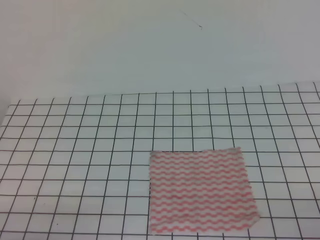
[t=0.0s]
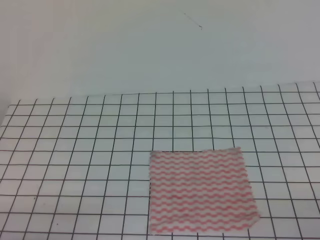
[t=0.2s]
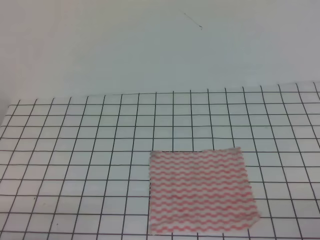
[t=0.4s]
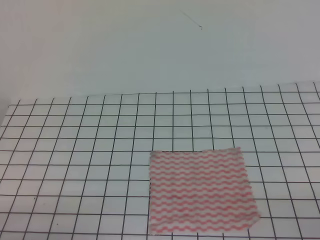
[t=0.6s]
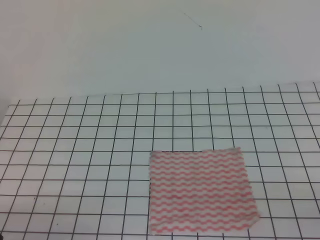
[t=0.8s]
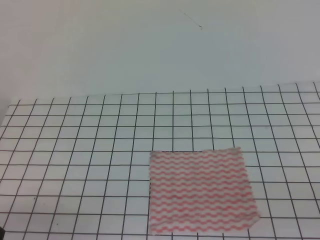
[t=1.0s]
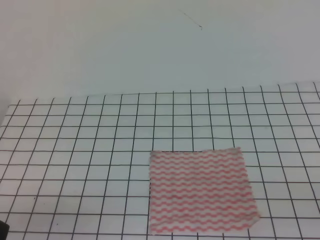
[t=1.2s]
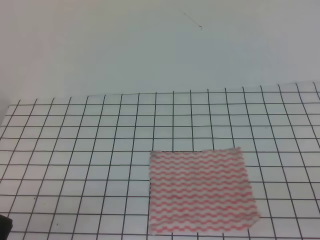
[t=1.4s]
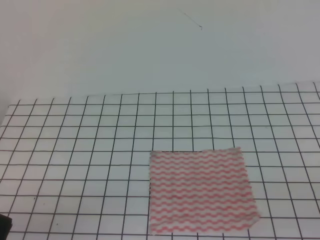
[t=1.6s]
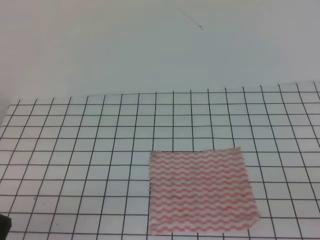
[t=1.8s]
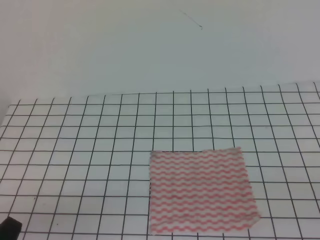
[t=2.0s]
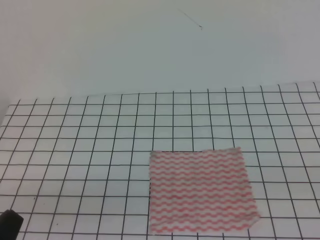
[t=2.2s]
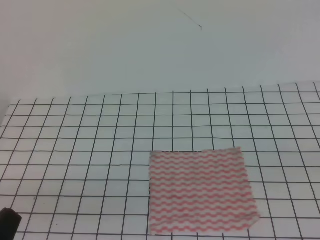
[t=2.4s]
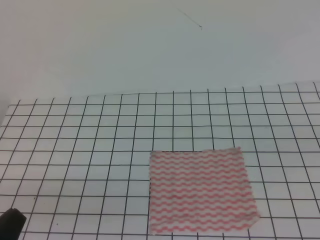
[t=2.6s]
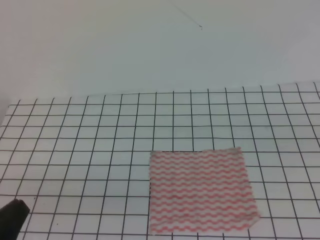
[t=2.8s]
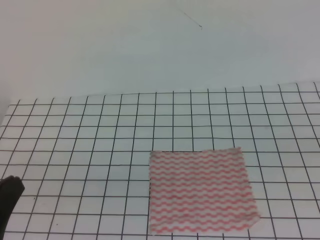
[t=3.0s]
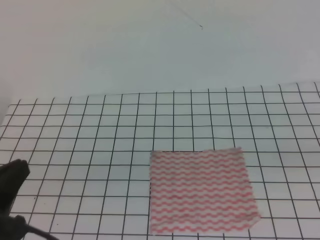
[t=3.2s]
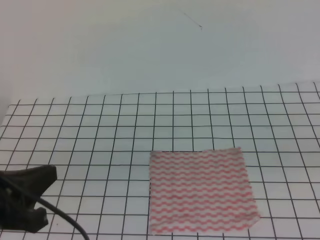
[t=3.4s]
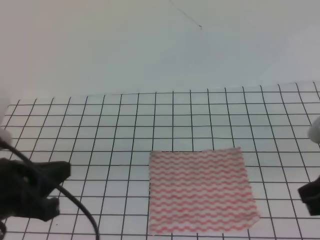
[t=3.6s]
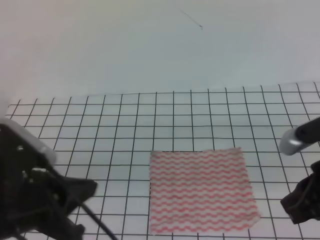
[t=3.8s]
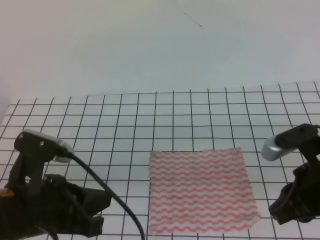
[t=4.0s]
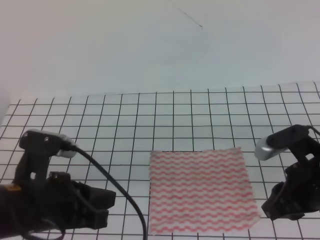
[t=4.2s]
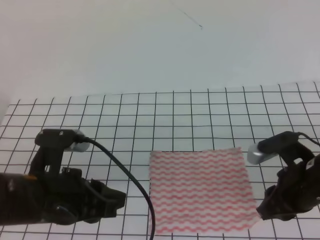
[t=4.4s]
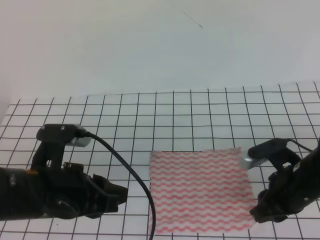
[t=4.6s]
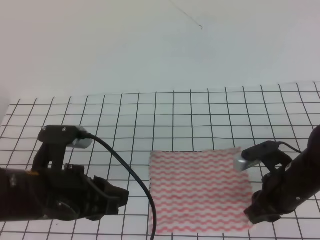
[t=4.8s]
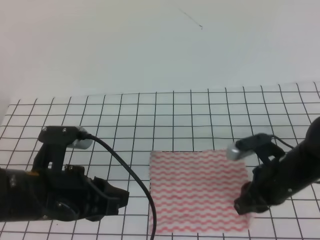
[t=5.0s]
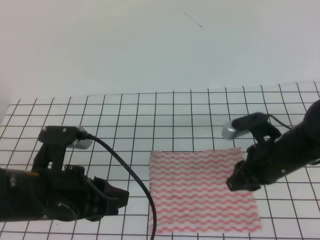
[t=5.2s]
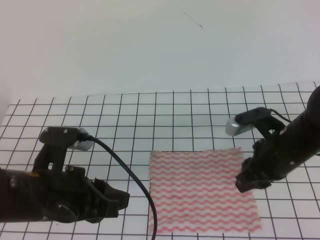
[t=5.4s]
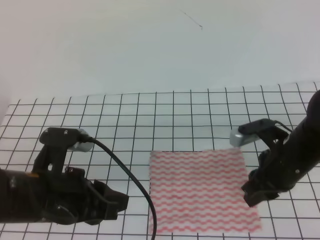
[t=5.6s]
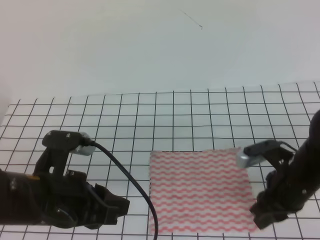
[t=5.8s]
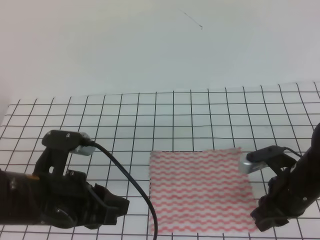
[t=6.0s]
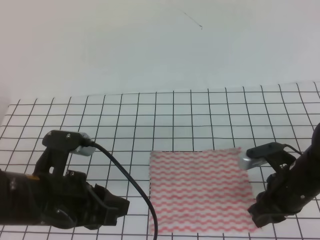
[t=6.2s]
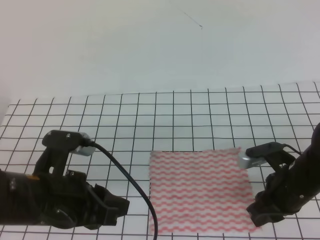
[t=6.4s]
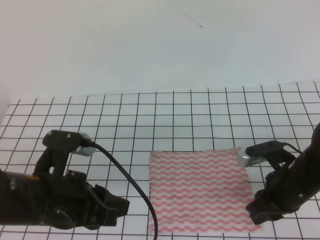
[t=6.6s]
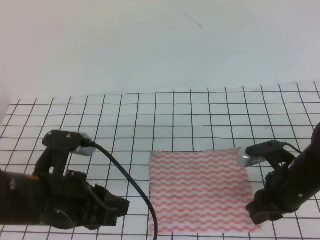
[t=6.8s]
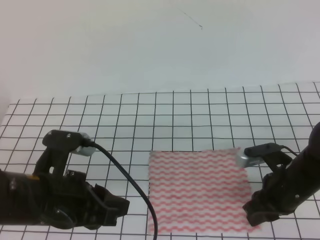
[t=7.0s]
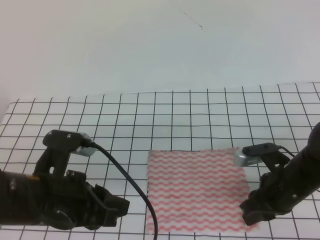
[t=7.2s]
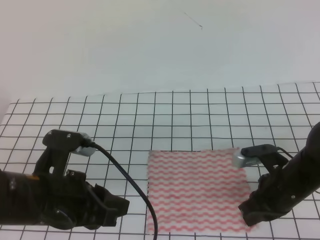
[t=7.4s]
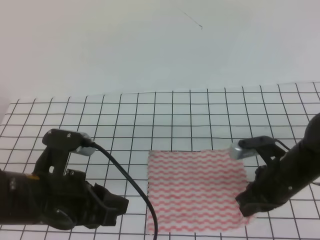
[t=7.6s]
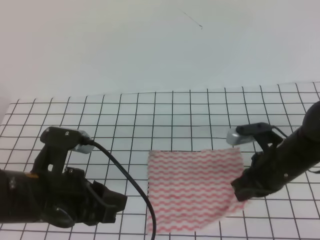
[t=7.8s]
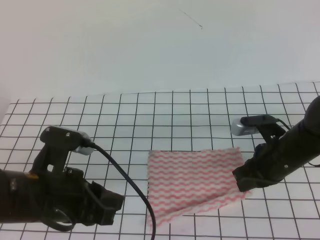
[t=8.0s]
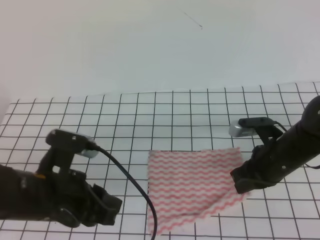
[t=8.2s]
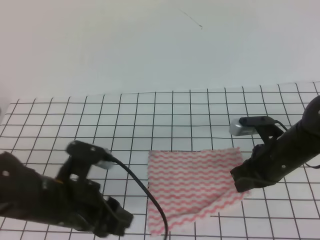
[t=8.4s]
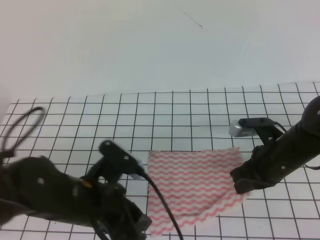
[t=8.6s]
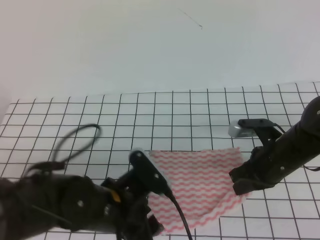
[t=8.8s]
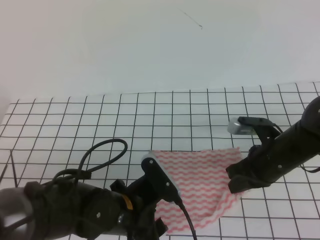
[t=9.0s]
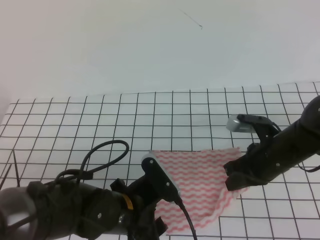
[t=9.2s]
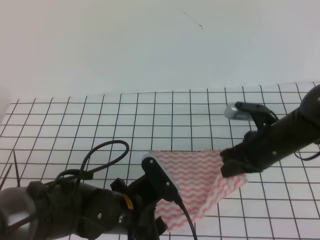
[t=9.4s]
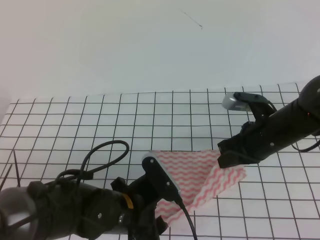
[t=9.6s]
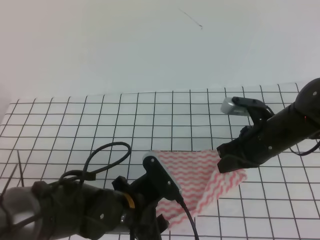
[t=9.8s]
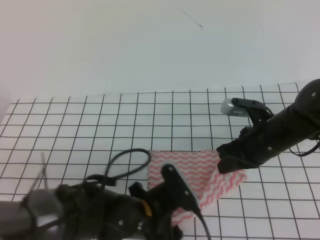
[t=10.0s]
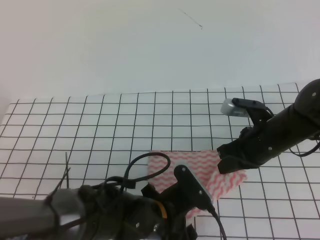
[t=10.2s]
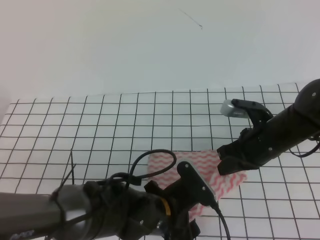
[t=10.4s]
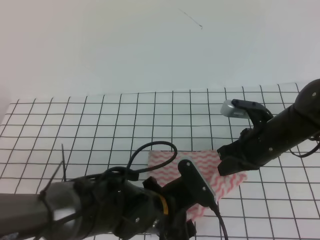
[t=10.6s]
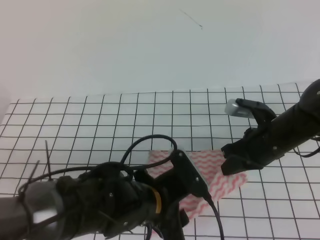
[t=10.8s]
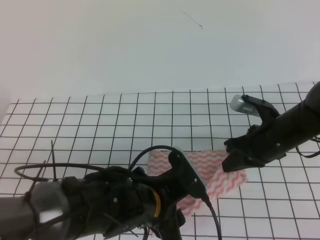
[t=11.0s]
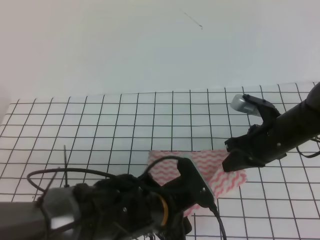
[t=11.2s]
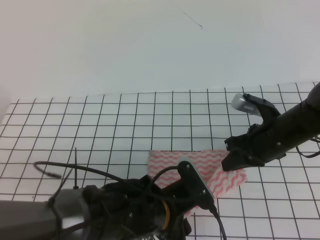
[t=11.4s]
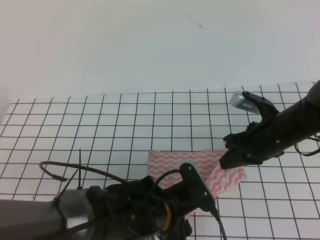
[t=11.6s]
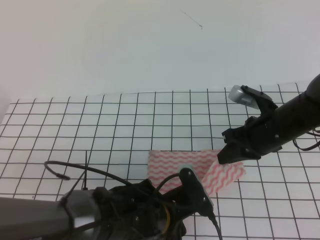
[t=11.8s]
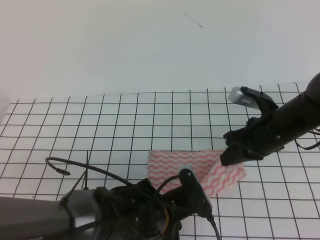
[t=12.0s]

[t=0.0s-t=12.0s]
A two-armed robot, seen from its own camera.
t=1.6s to t=3.0s: The left gripper heads upward, covering approximately 10 cm.
t=3.0s to t=4.4s: The left gripper heads forward and to the right, covering about 15 cm, and opens, while the right gripper travels to the left, downward and forward by some 20 cm, and opens up.
t=4.4s to t=6.0s: The grippers stay close to where they were, moving slightly.
t=6.0s to t=7.6s: The right gripper closes its fingers.
t=7.6s to t=9.0s: The left gripper shifts some 10 cm to the right and downward, and opens up.
t=9.0s to t=10.4s: The left gripper shifts some 5 cm to the right.
t=10.4s to t=12.0s: The left gripper closes up.

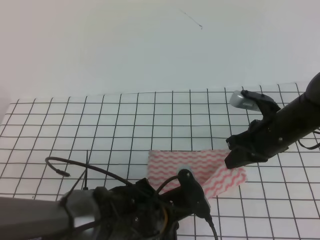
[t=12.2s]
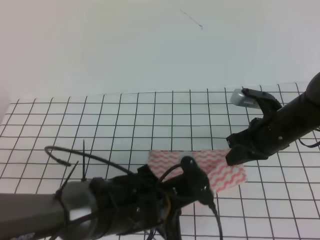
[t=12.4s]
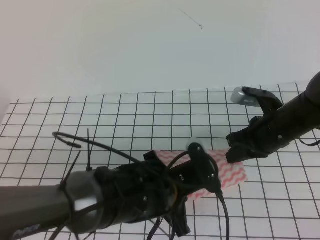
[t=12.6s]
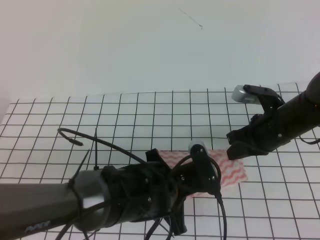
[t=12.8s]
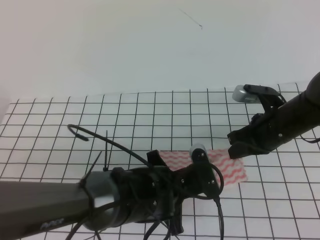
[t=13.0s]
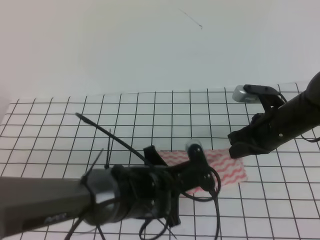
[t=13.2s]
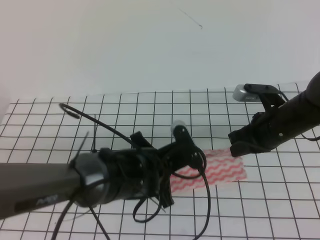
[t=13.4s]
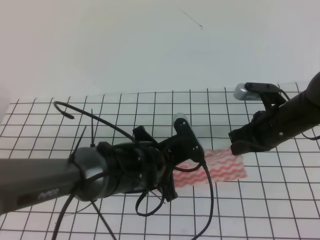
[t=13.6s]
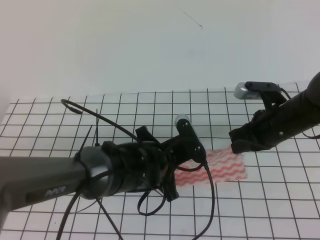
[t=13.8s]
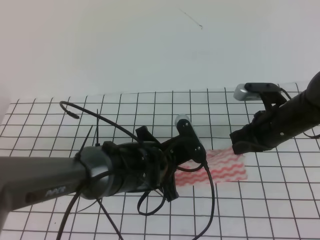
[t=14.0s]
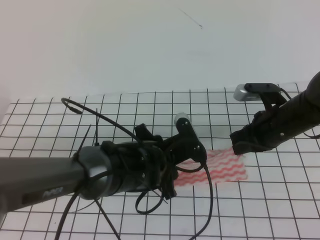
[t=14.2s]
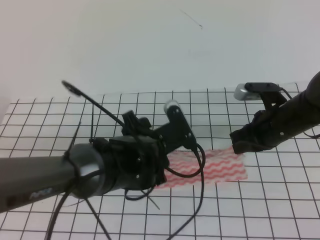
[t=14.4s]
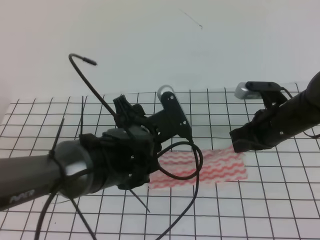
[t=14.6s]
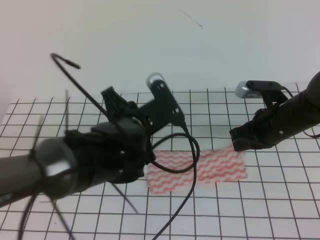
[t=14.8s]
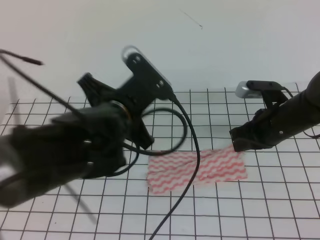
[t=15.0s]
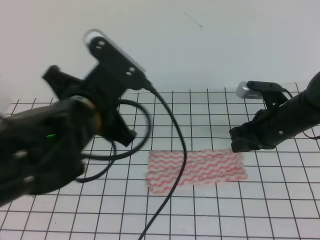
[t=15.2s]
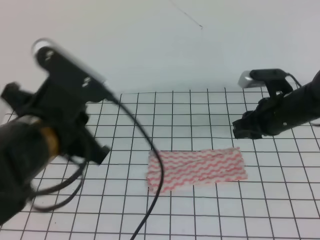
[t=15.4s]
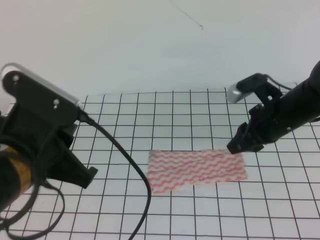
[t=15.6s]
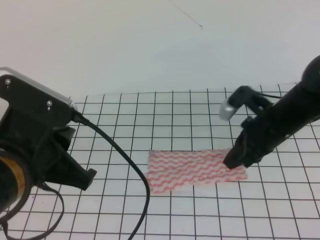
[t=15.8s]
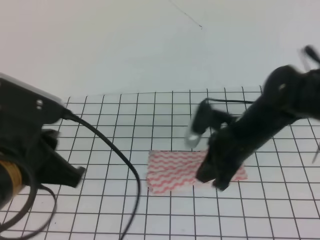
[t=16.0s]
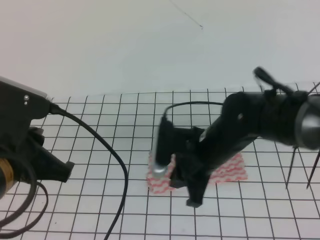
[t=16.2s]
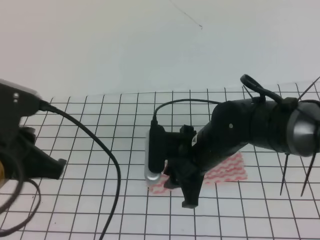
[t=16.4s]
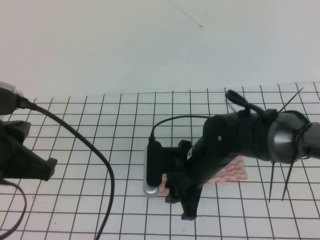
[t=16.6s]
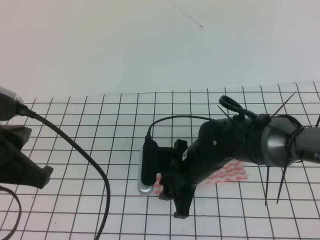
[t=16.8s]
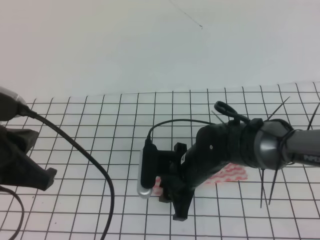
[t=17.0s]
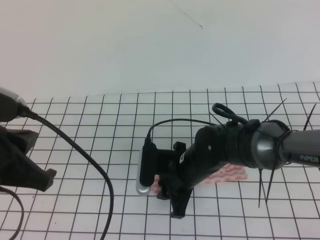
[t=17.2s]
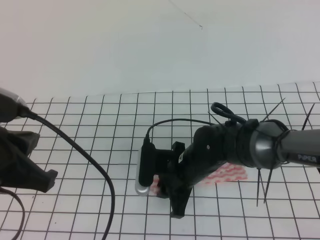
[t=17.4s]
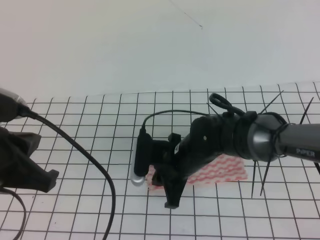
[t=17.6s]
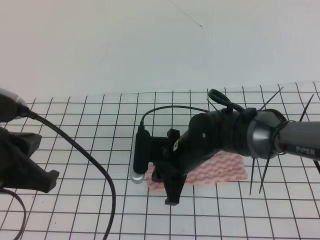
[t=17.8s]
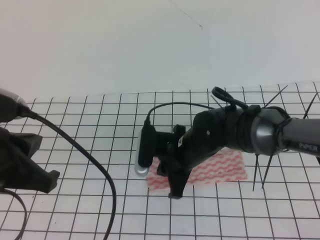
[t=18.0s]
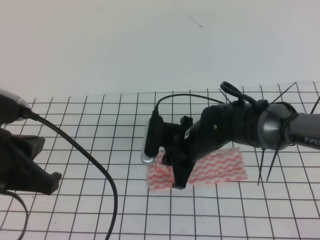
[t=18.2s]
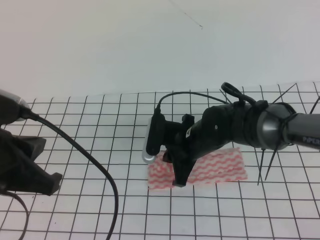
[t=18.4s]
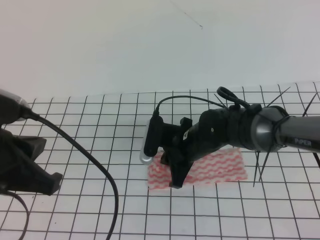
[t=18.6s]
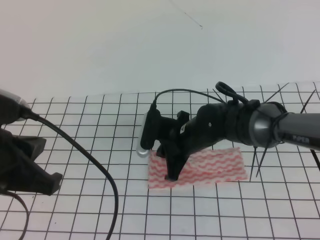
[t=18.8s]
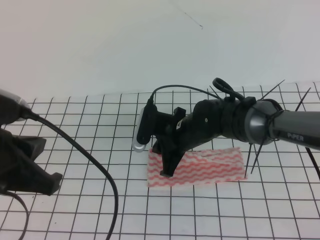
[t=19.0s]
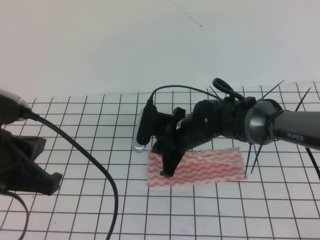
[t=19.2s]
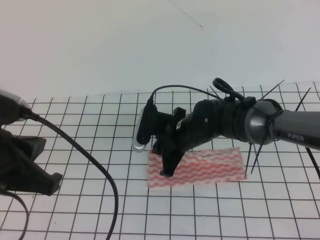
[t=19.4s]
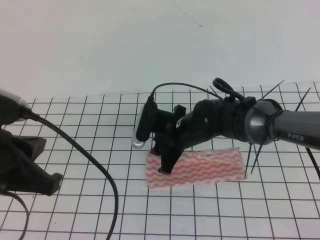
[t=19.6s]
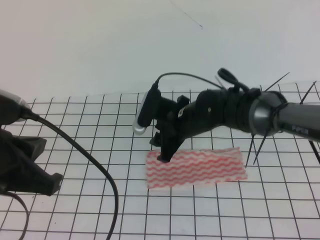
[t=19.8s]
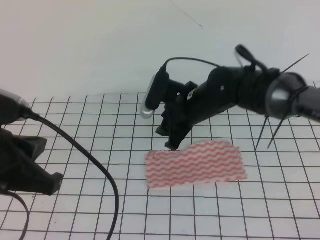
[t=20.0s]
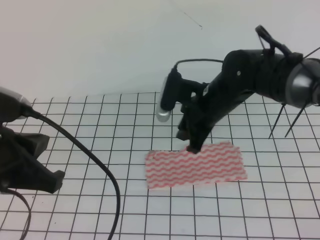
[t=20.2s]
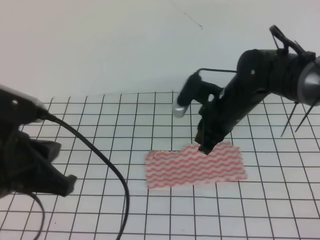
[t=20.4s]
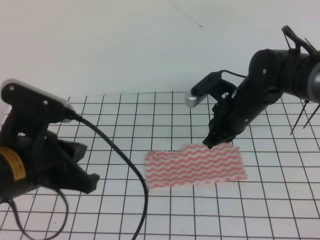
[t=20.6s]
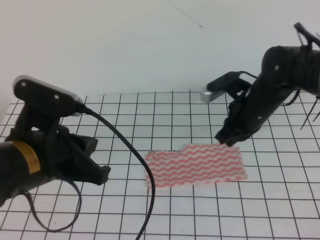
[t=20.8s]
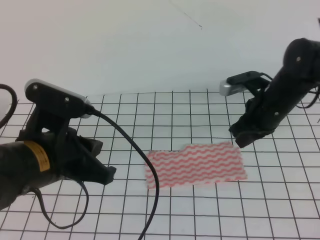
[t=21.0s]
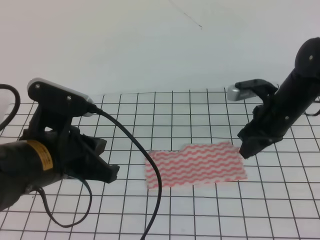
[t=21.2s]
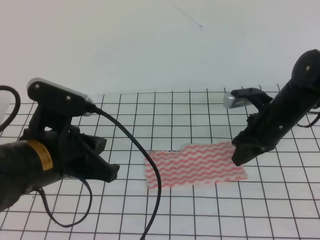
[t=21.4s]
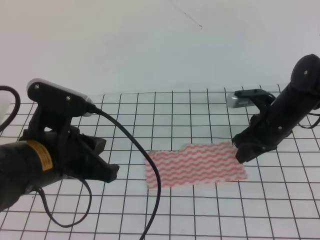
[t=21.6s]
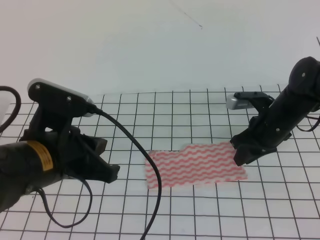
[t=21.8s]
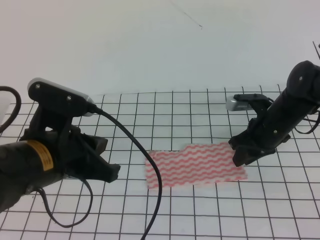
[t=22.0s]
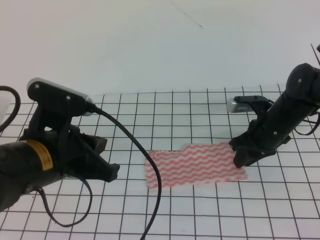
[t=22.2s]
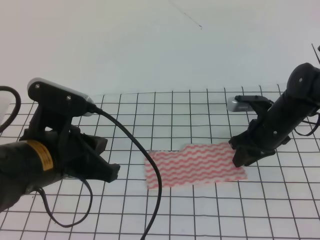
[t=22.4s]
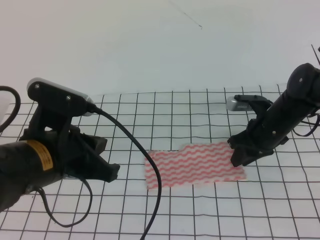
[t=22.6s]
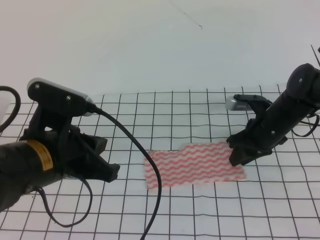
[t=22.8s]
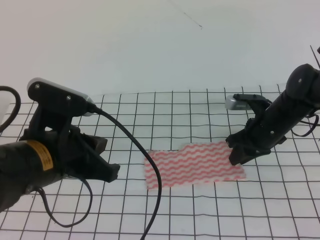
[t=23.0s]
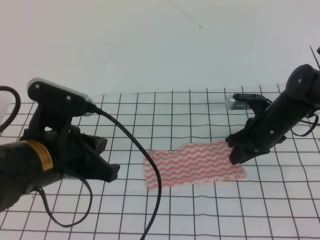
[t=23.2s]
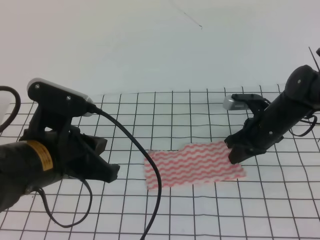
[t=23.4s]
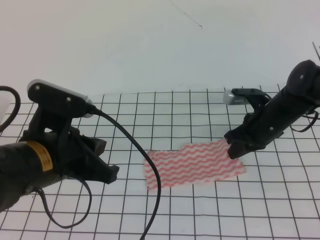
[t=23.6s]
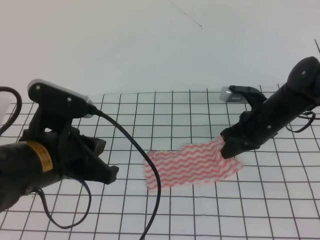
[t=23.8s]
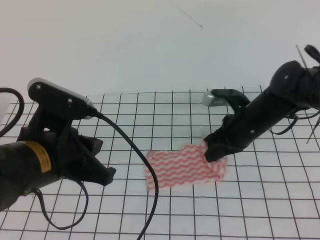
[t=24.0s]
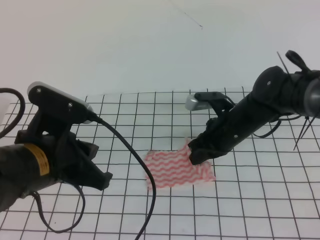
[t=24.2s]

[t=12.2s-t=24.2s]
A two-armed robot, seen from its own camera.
t=12.2s to t=13.8s: The left gripper is displaced forward by approximately 10 cm.
t=13.8s to t=15.2s: The left gripper shifts some 15 cm upward and to the left, and opens and closes again. The right gripper opens.
t=15.2s to t=16.6s: The two grippers go approximately 15 cm to the left and backward. The right gripper opens its fingers.
t=16.6s to t=18.2s: The right gripper closes up.
t=18.2s to t=19.8s: The right gripper opens its fingers.
t=19.8s to t=21.2s: The right gripper travels to the right by some 15 cm, and closes up. The left gripper shifts by approximately 5 cm.
t=21.2s to t=22.6s: The right gripper heads downward, covering some 5 cm, and opens its fingers.
t=22.6s to t=24.2s: The right gripper goes some 5 cm to the left, and closes its fingers.
